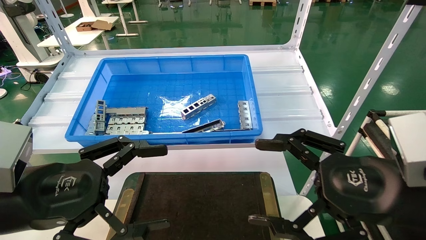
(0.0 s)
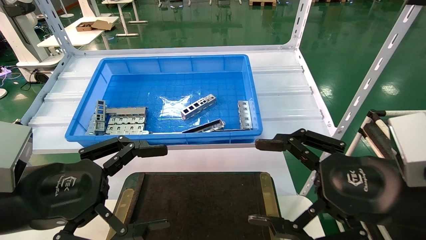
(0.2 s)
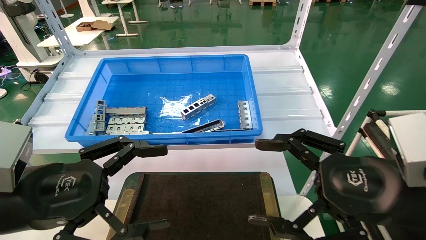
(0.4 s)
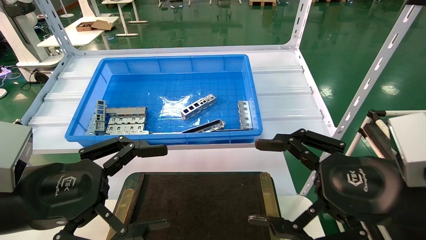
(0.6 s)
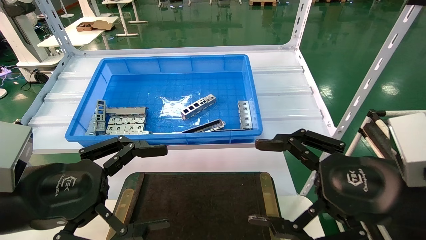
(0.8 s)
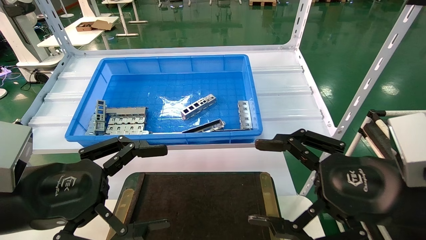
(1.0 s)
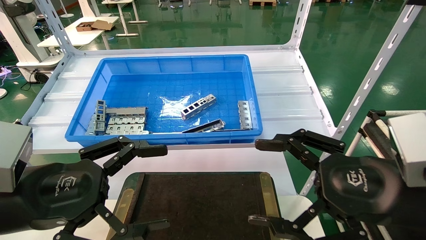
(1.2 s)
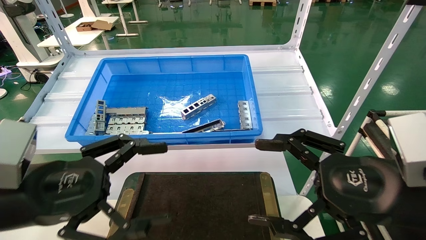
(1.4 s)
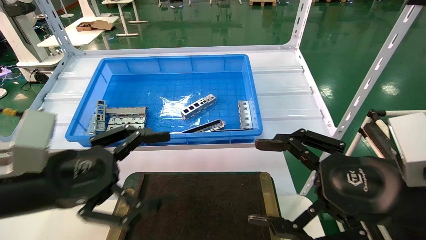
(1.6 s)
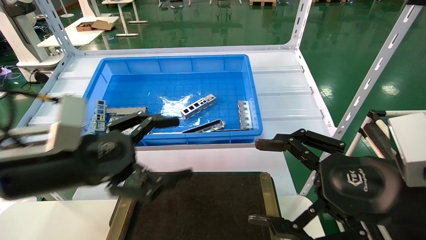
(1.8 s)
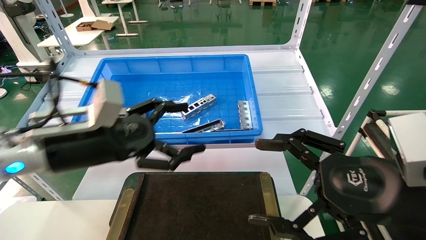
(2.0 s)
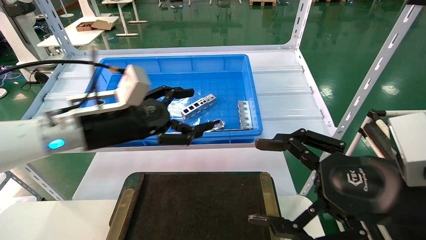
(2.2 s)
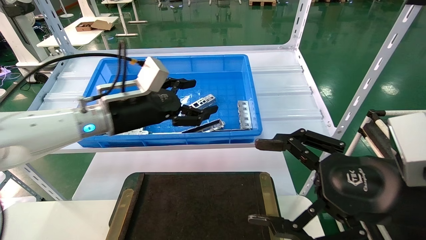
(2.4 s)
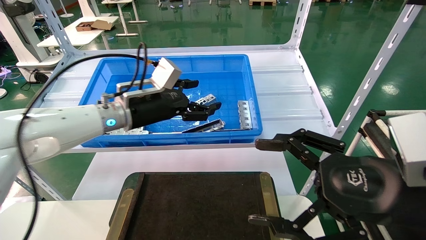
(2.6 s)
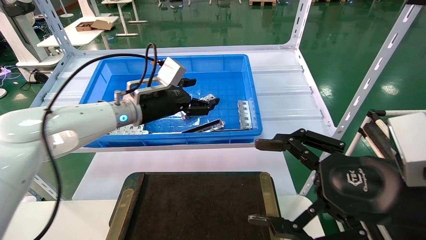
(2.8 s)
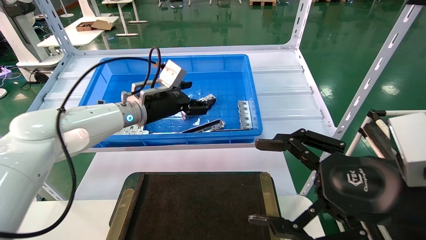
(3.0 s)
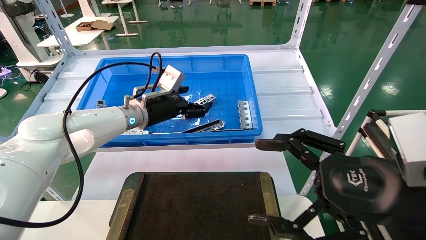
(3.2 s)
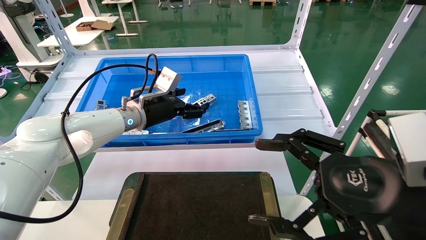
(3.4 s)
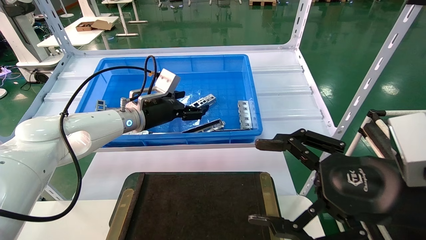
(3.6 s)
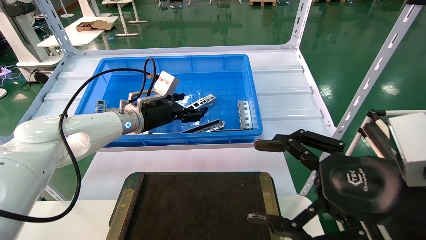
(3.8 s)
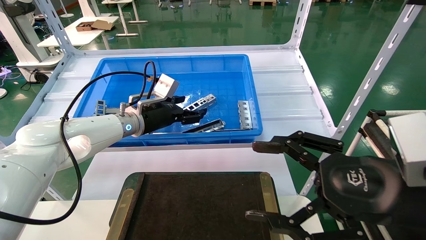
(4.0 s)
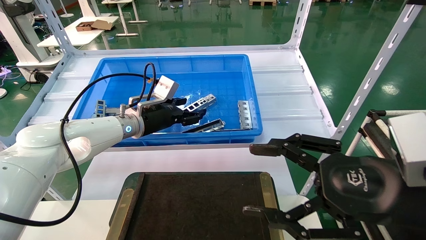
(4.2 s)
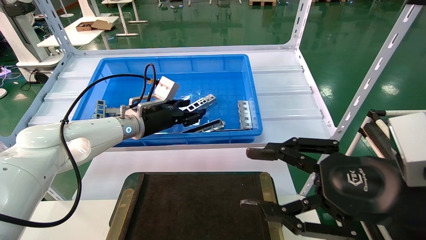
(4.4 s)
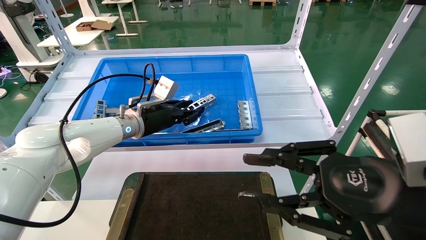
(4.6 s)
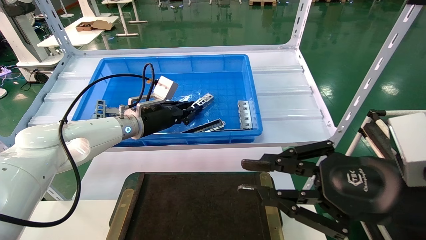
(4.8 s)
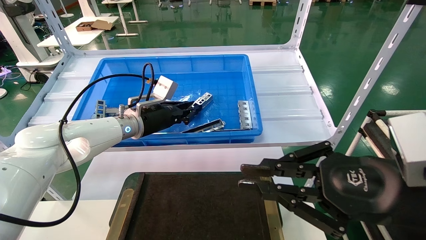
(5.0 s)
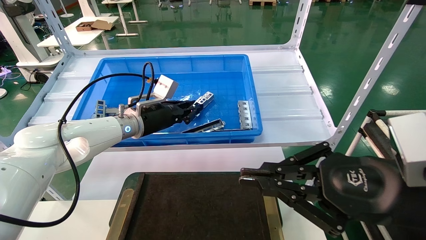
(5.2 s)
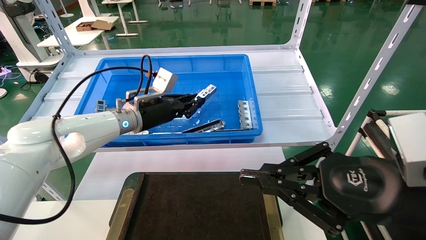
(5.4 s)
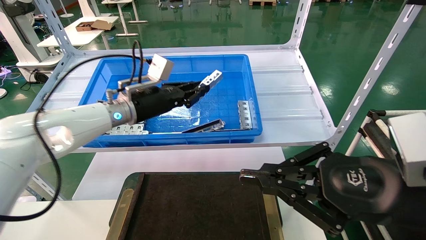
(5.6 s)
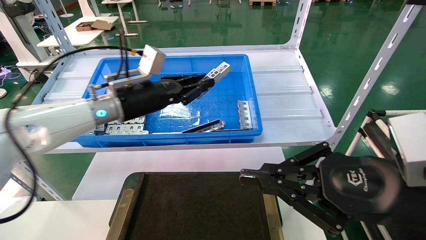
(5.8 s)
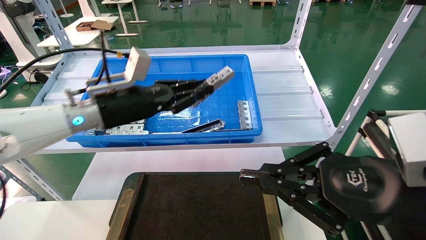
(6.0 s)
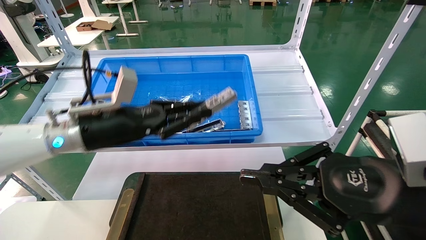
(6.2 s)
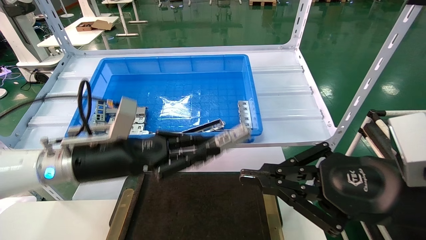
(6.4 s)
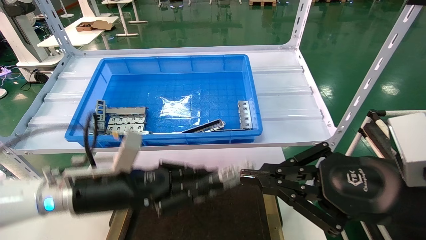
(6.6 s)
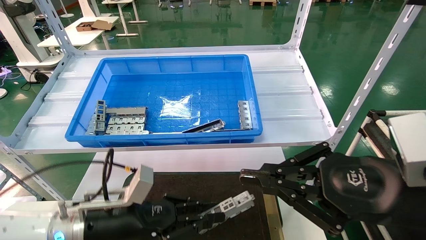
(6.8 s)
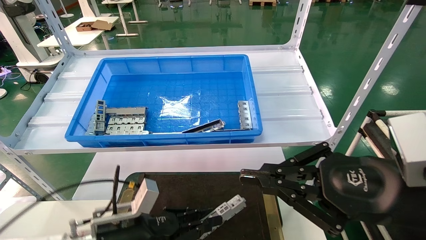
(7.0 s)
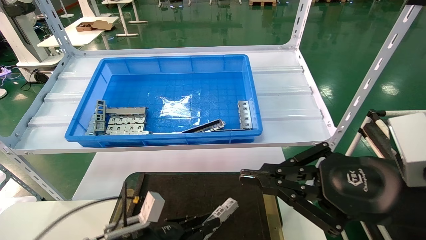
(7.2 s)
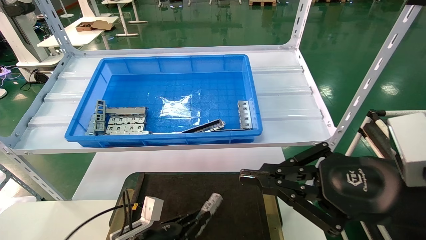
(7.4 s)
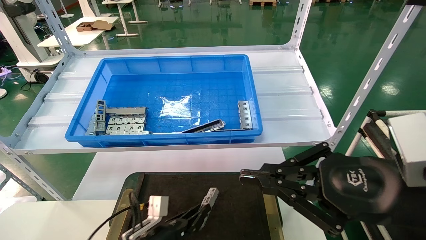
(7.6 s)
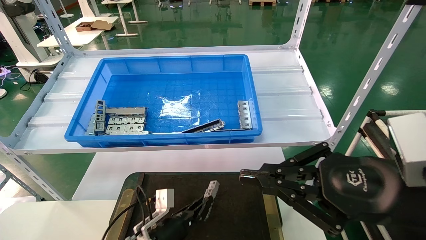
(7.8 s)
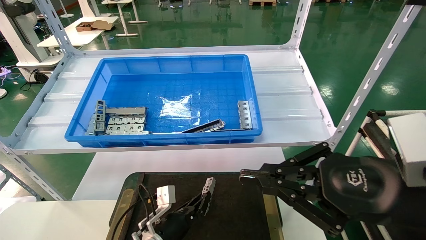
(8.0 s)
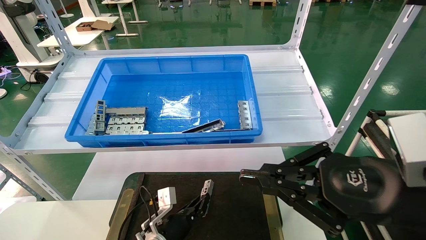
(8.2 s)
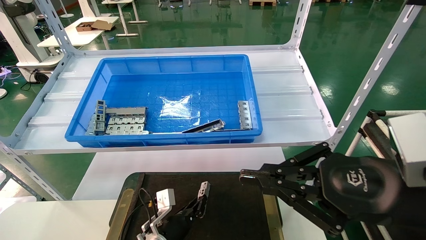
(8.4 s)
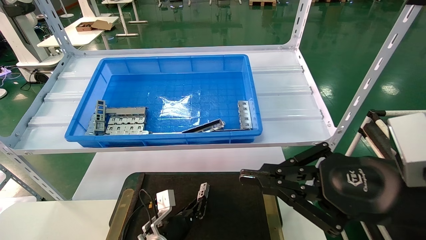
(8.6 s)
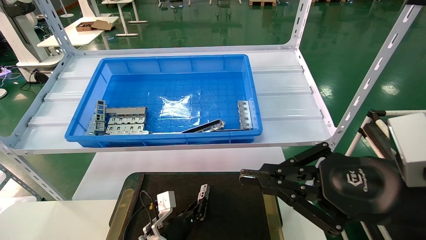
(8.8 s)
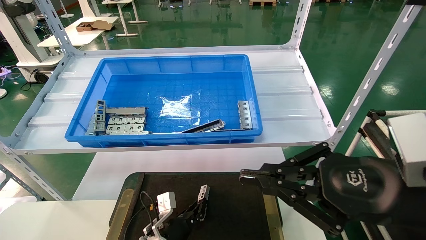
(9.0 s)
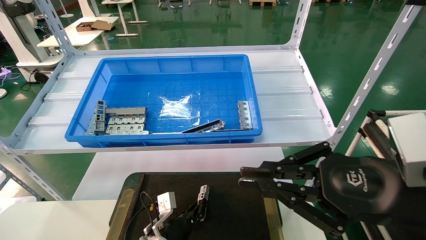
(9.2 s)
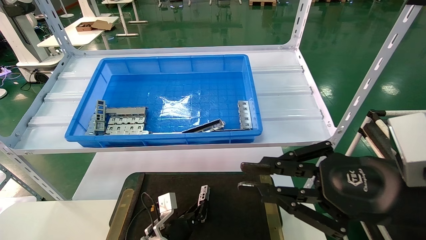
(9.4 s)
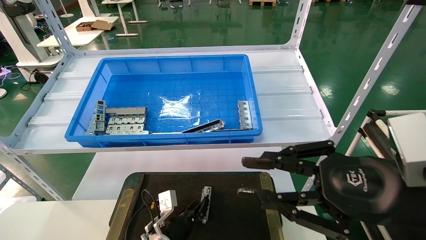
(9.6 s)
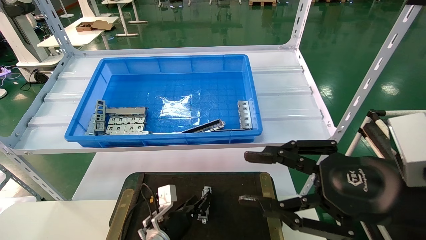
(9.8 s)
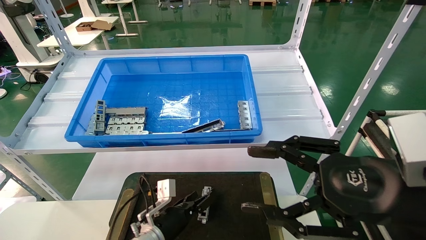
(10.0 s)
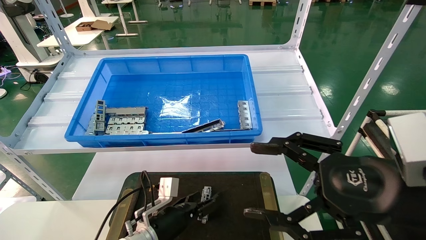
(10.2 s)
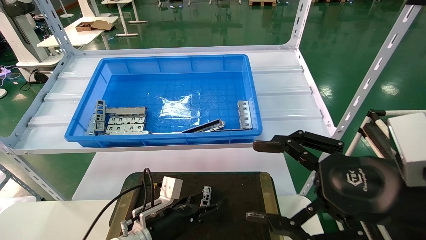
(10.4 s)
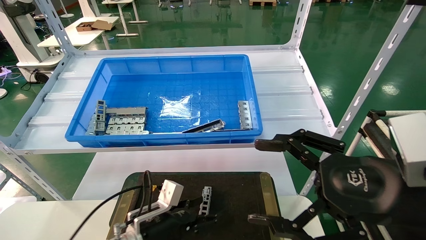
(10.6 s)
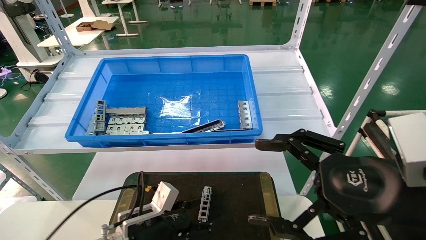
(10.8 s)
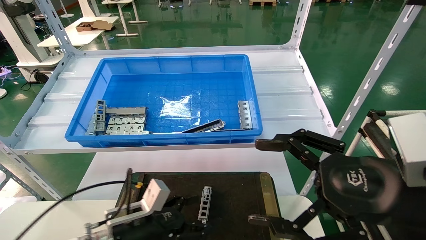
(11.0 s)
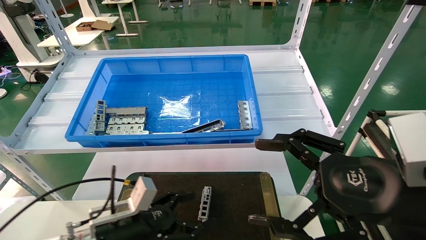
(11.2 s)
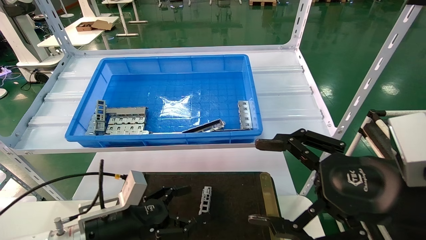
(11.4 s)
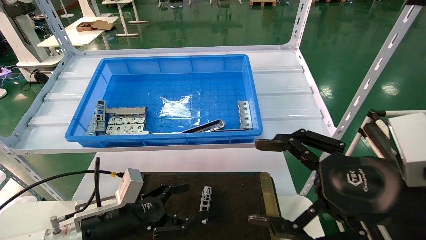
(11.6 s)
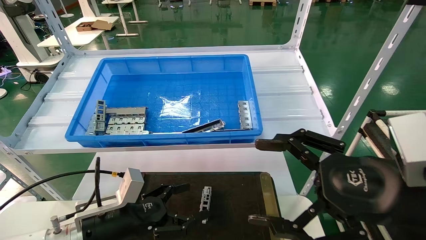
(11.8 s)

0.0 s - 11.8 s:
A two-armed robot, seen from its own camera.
Task of the whole recording: Grasp the part with one hand and place it on the black container.
Step, 1.6 s - 5.8 s: Pick up the front USB bracket from the feeding area.
Step, 6.0 s - 9.6 s: Place the front USB bracket into the box.
0.0 s - 1.4 s: Neither gripper changes place.
1.4 s - 3.0 s: The left gripper heads forward, covering some 25 cm.
3.0 s - 4.4 s: The left gripper closes its fingers.
4.4 s - 6.0 s: The left gripper heads backward, covering about 10 cm, and closes up; the right gripper closes.
6.0 s - 7.4 s: The left gripper shifts about 30 cm downward.
7.4 s - 8.8 s: The left gripper shifts roughly 10 cm forward and downward.
8.8 s - 10.4 s: The right gripper opens up, while the left gripper moves upward, approximately 10 cm, and opens.
10.4 s - 11.8 s: The left gripper moves to the left and upward, approximately 10 cm.

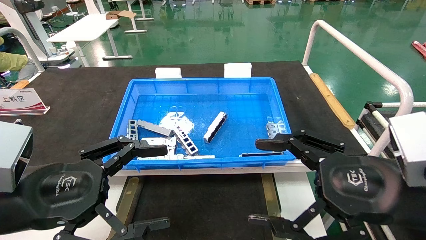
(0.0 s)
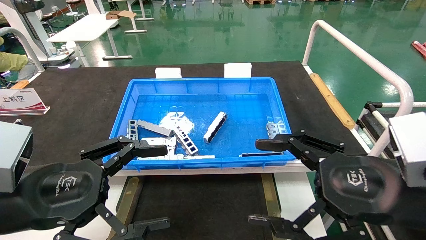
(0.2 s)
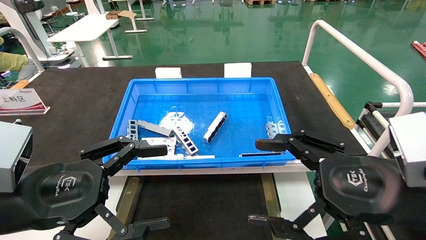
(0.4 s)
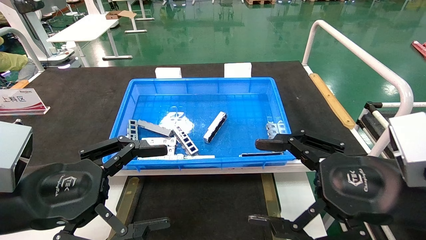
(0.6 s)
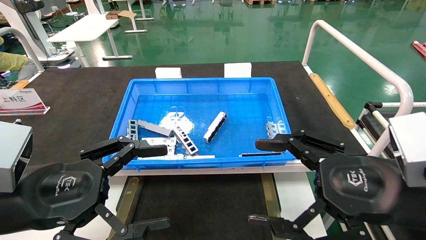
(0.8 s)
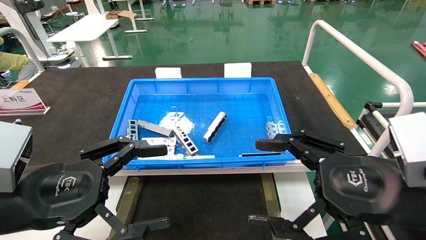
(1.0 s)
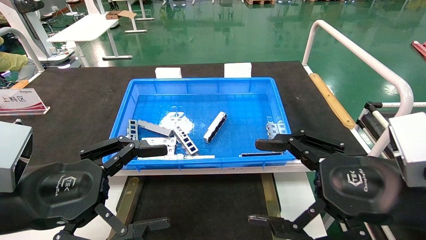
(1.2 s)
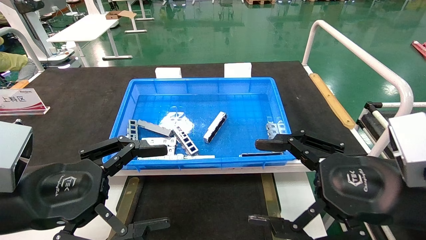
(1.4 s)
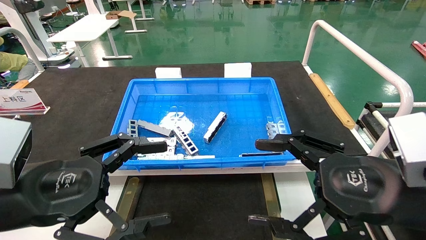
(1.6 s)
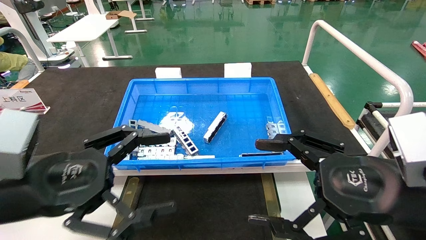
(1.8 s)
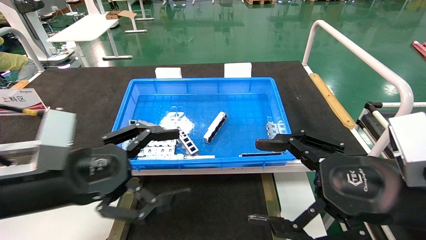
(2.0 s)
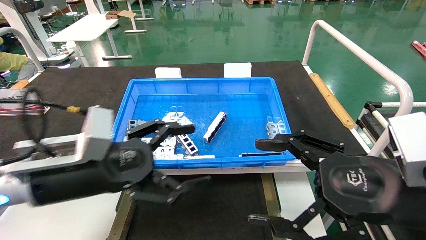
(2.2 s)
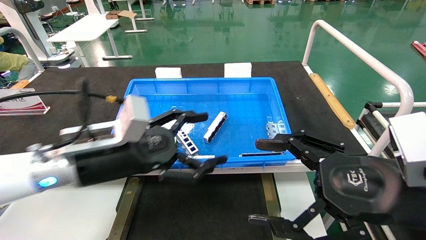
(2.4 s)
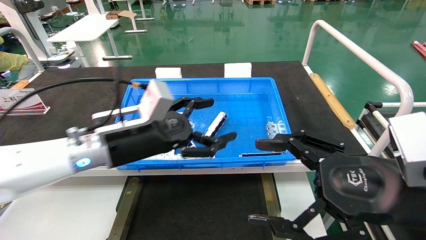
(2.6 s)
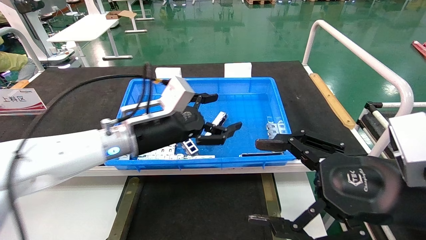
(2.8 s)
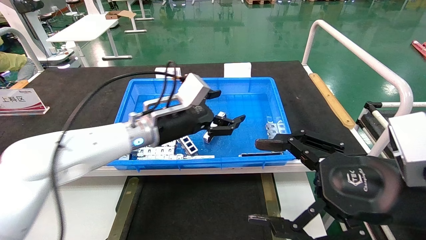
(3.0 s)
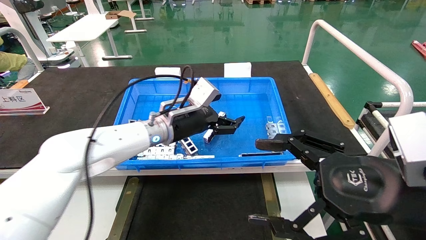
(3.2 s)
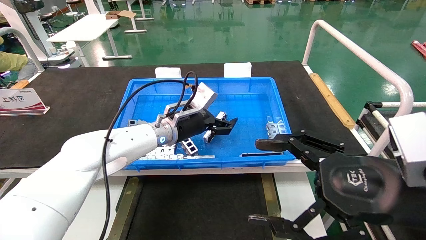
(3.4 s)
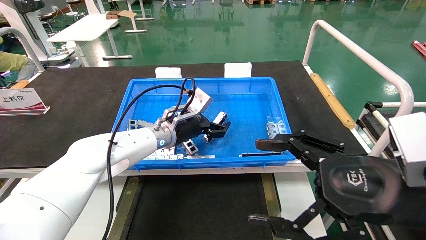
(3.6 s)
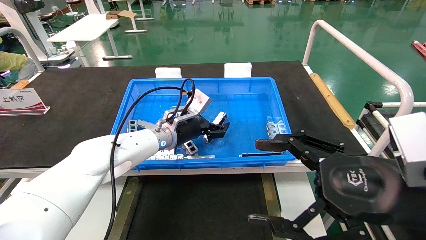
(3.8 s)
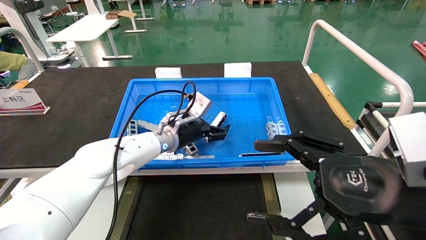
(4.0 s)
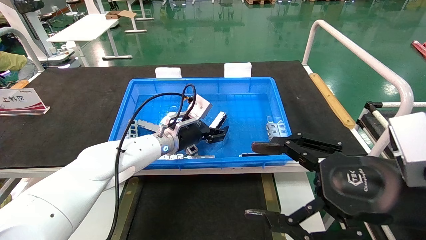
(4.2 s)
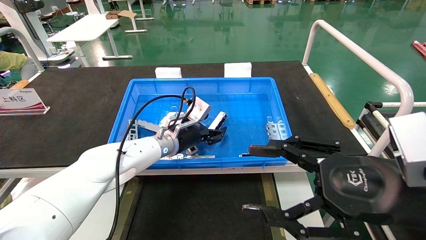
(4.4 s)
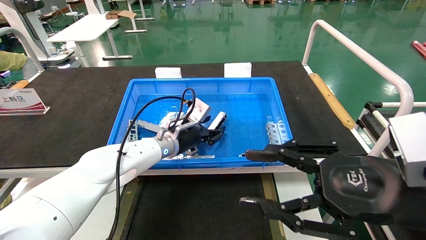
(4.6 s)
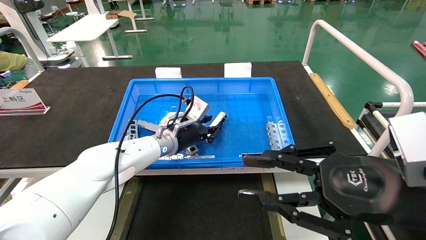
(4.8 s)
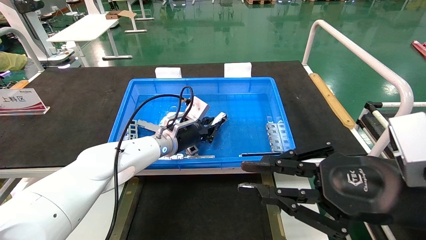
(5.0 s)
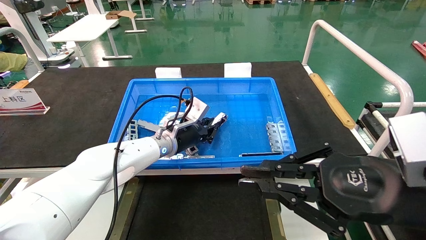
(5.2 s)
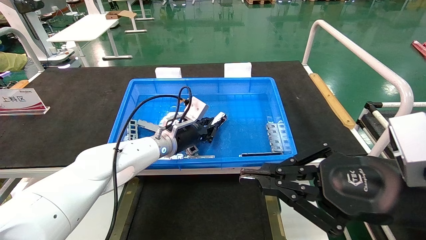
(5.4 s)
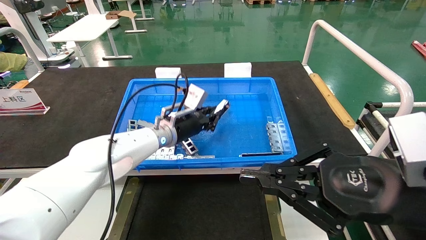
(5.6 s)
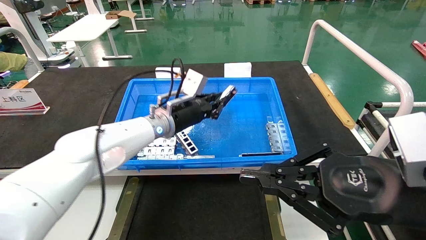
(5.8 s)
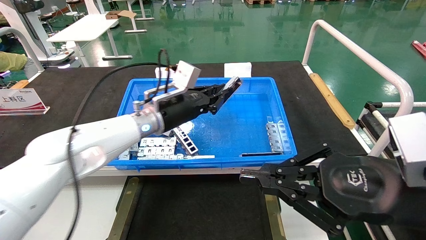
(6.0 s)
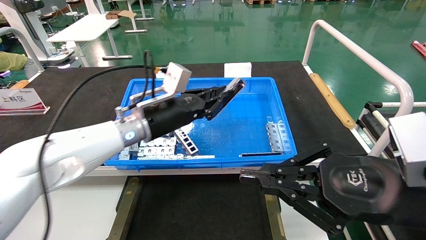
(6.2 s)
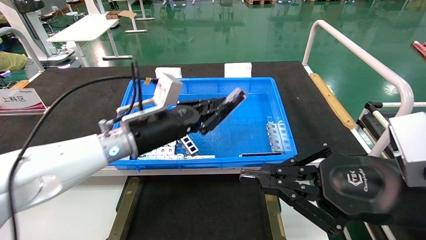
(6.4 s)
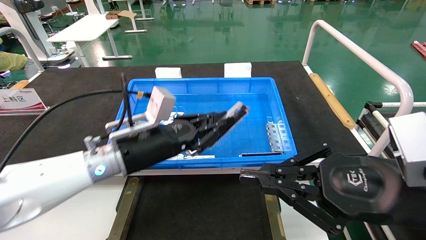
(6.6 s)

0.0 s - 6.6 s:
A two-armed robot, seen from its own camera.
Task of the whole recording: Grasp the part with one hand and place it on the black container.
Step, 2.0 s - 5.2 s: Pick up the front USB bracket from the feeding area.
0.0 s - 1.6 s: Both grippers stay put.
1.6 s - 3.2 s: The left gripper travels forward and to the right by approximately 30 cm.
3.2 s - 5.0 s: The left gripper travels downward by approximately 5 cm, and closes up, while the right gripper closes its fingers.
5.0 s - 6.6 s: The left gripper travels backward by roughly 15 cm.
